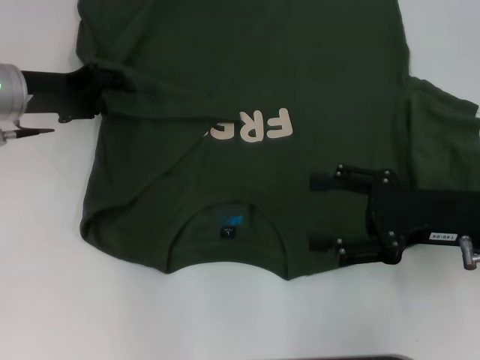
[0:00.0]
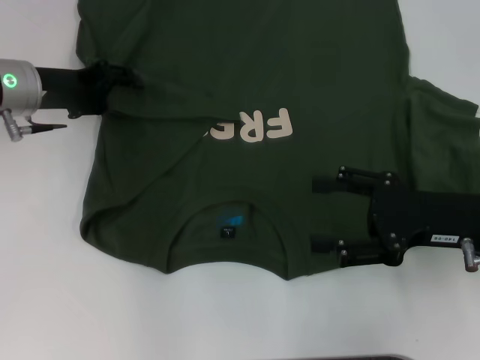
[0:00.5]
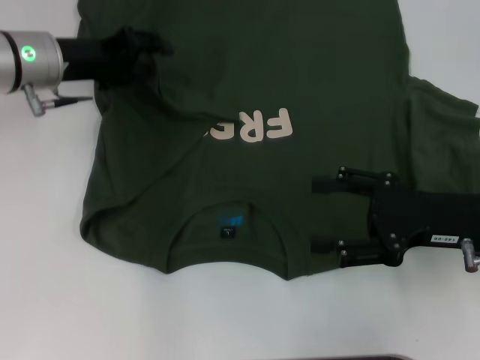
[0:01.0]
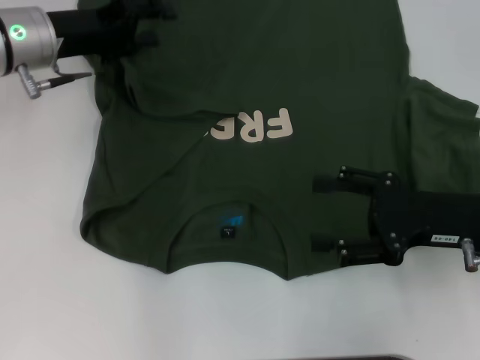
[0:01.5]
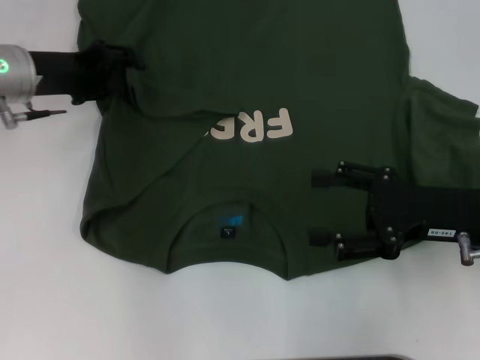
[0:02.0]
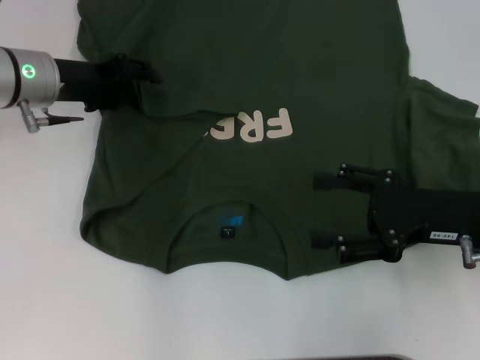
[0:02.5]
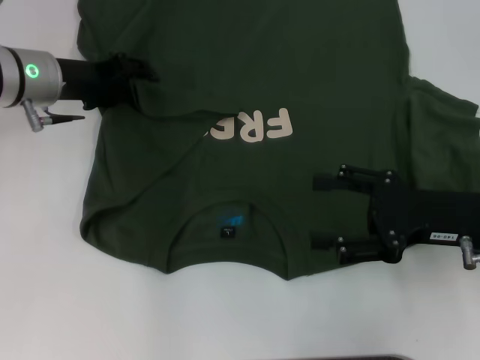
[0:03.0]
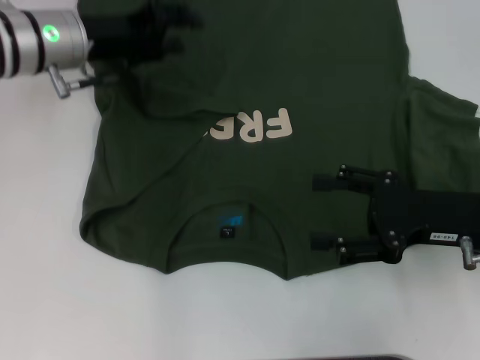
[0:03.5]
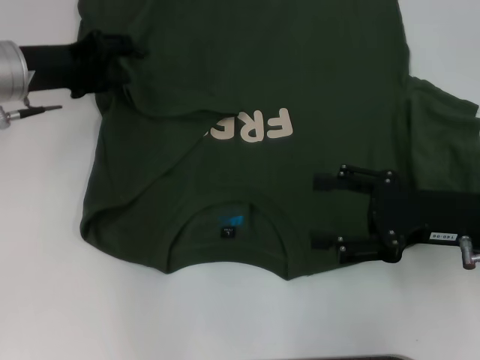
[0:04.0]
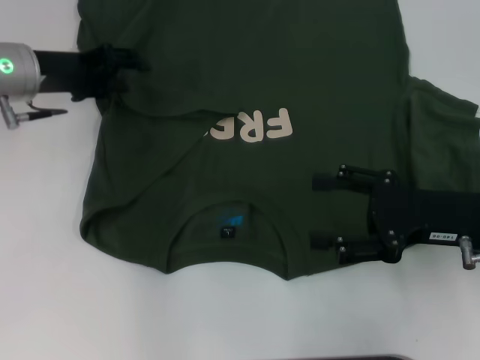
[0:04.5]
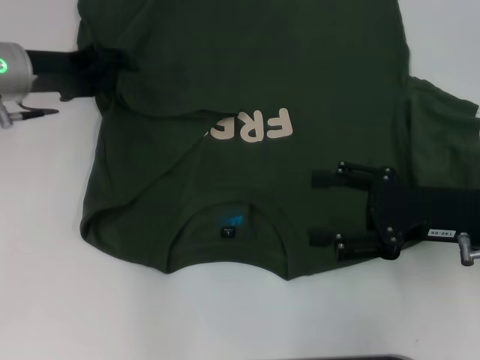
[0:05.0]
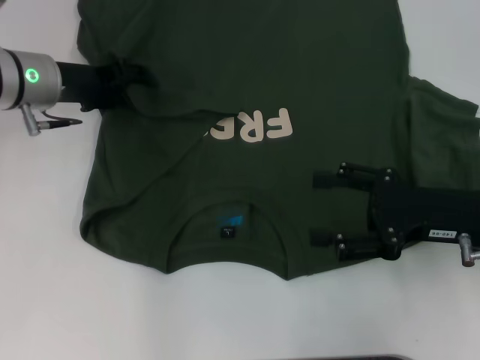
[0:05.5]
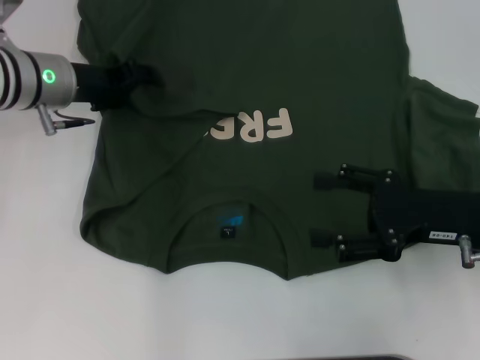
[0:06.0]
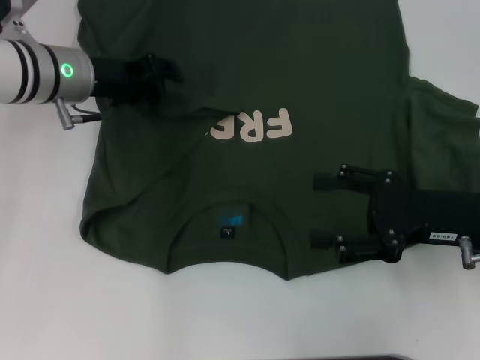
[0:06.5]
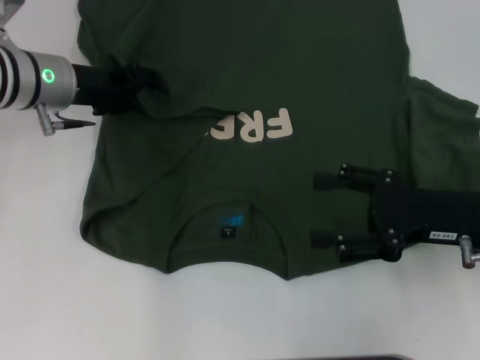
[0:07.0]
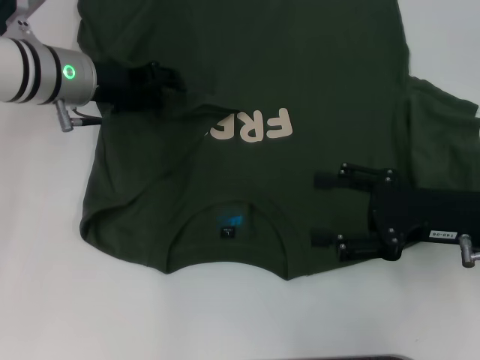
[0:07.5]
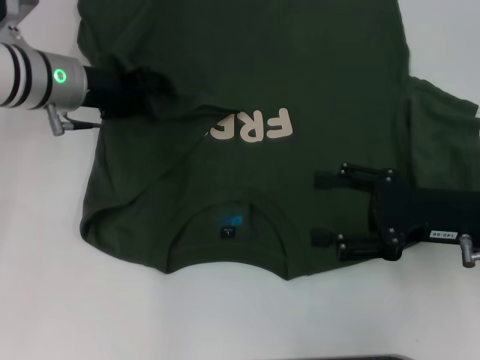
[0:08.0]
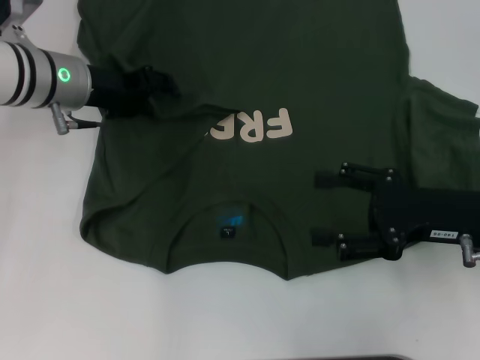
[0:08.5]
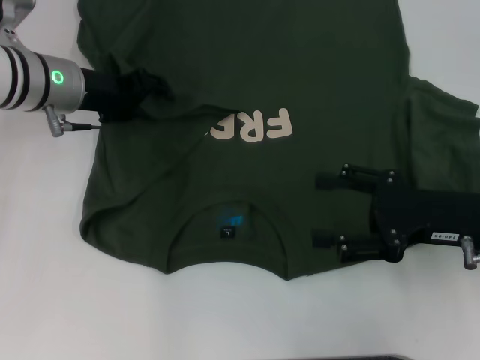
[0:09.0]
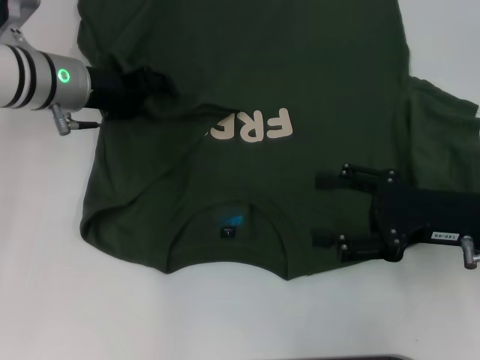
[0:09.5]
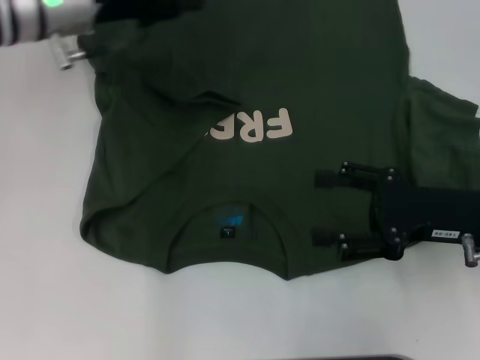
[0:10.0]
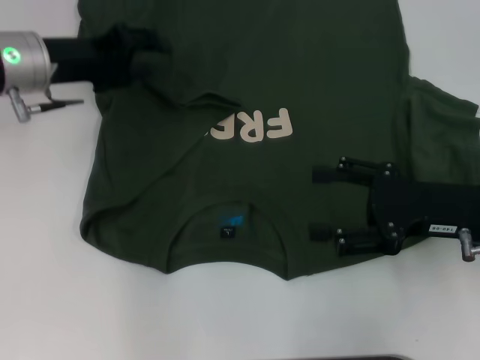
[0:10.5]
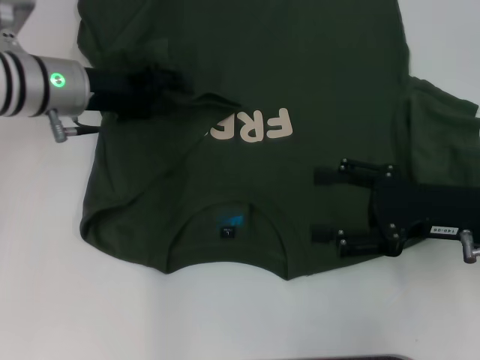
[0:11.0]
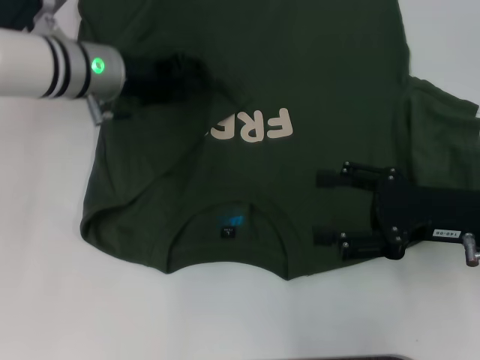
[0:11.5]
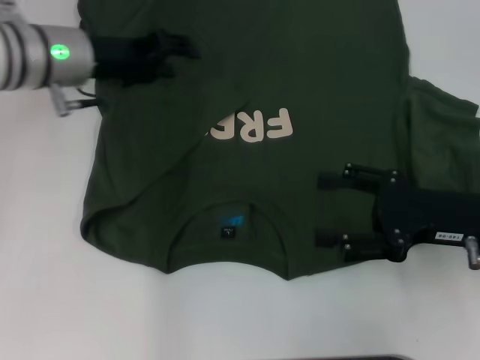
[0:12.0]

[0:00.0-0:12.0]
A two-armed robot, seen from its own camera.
Step, 0:00.0 to 0:12.0: Fold the bottom left sleeve with your left hand.
0:00.0 to 0:02.0: There are only small adjustments of the grippers.
0:02.0 to 0:08.0: The grippers make only small movements.
0:08.0 to 0:10.0: The left gripper moves upward, about 5 cm.

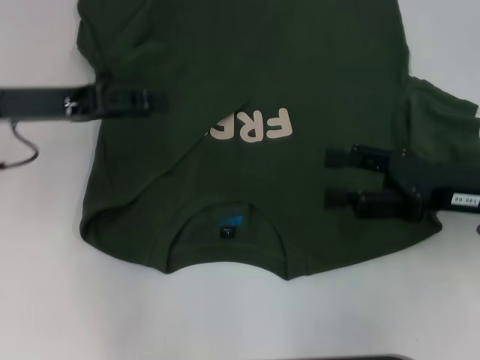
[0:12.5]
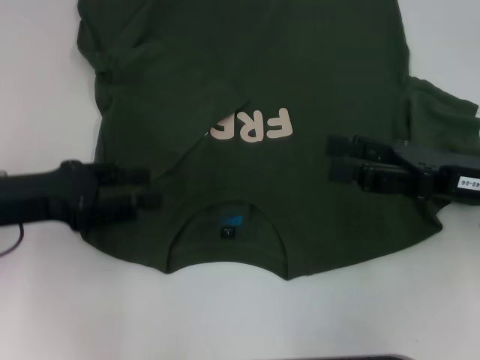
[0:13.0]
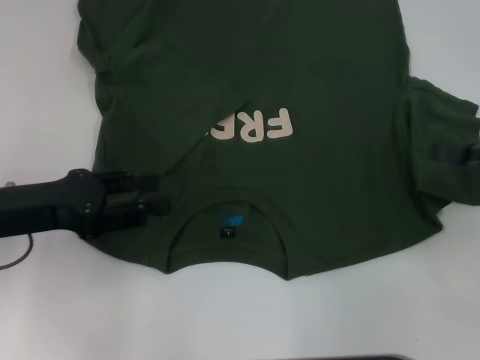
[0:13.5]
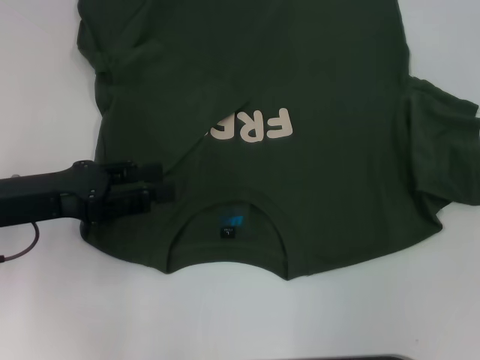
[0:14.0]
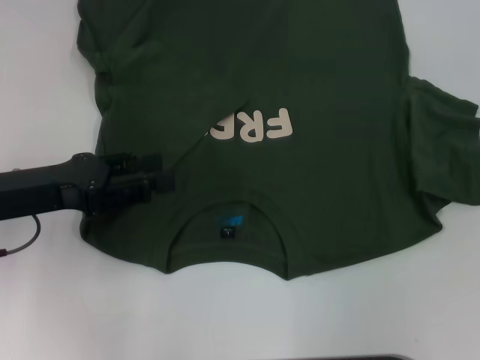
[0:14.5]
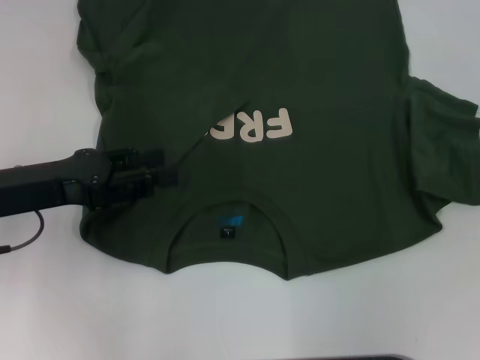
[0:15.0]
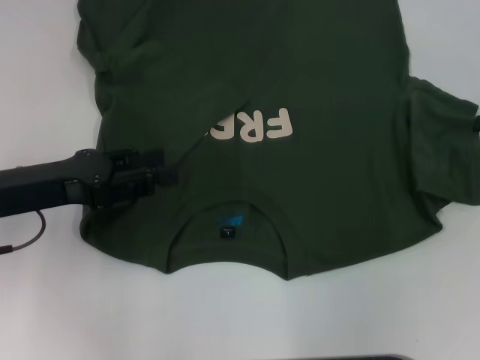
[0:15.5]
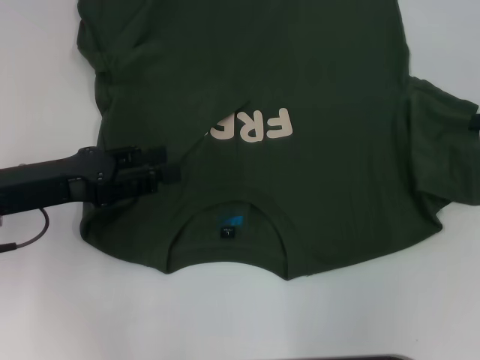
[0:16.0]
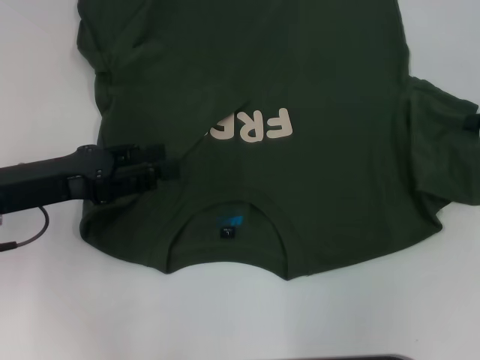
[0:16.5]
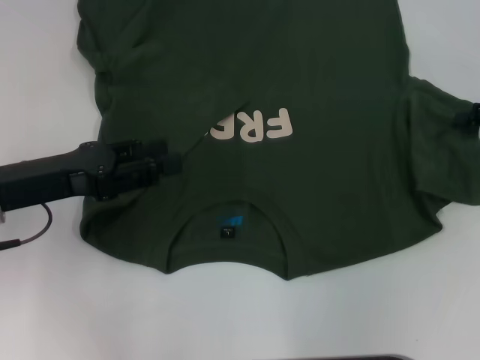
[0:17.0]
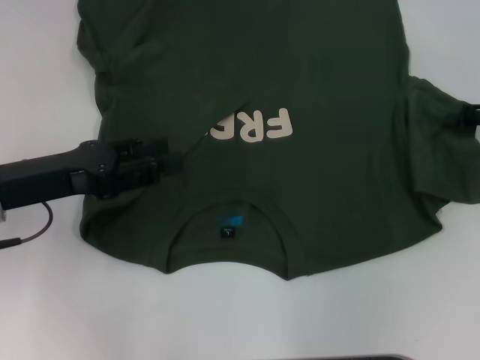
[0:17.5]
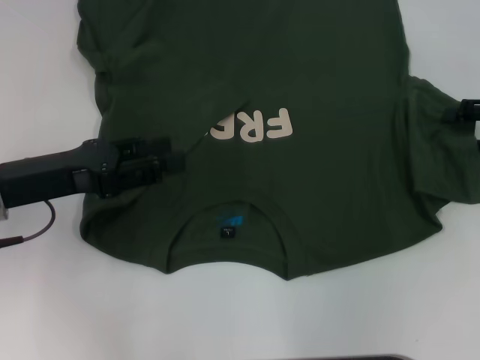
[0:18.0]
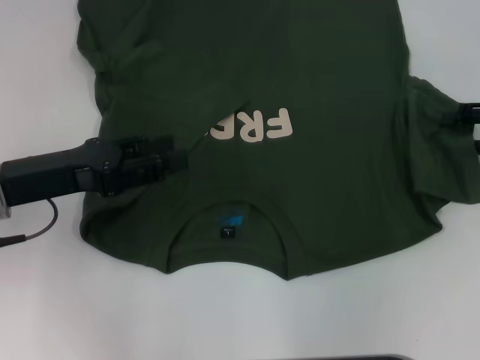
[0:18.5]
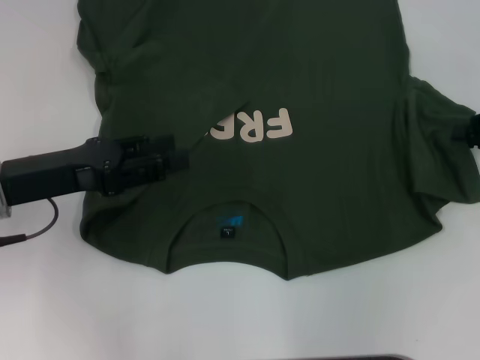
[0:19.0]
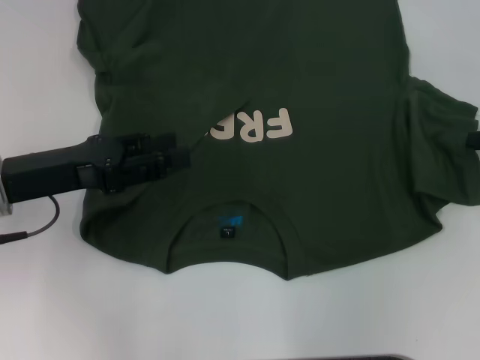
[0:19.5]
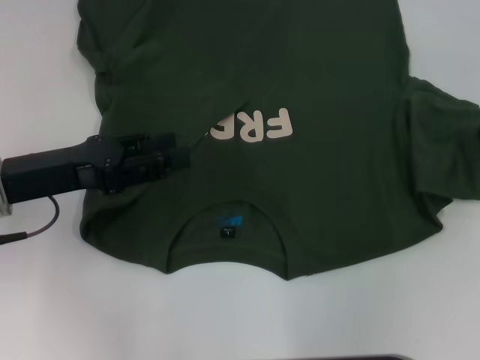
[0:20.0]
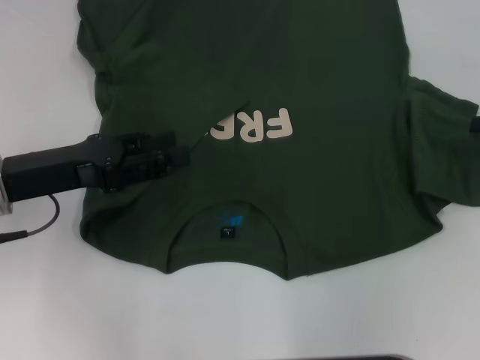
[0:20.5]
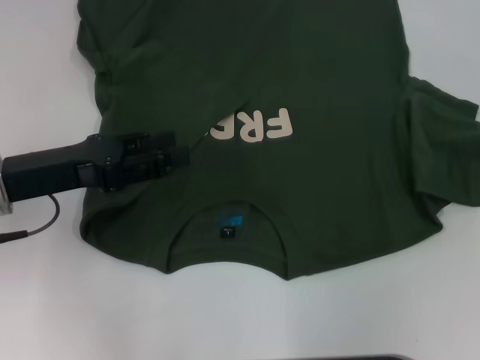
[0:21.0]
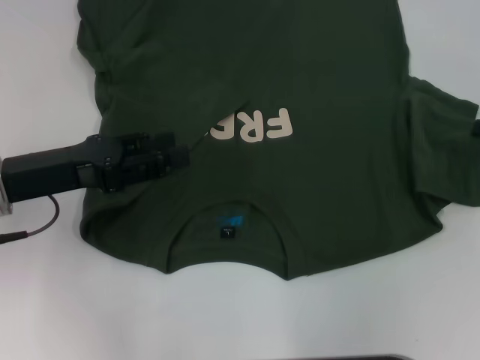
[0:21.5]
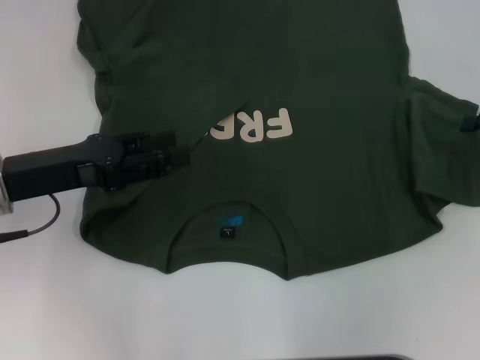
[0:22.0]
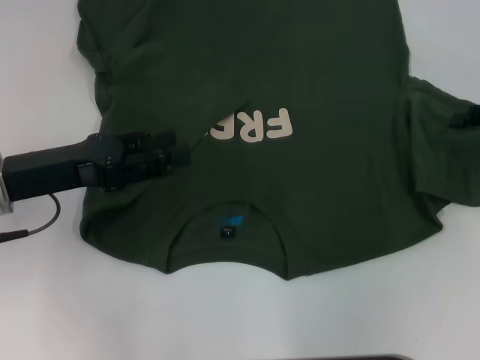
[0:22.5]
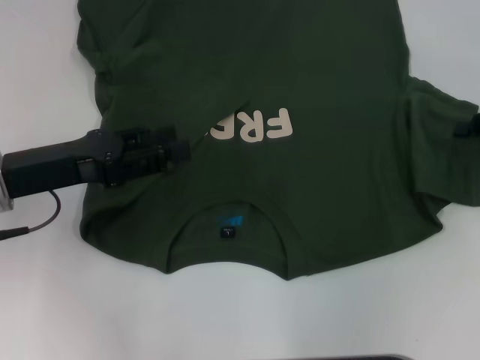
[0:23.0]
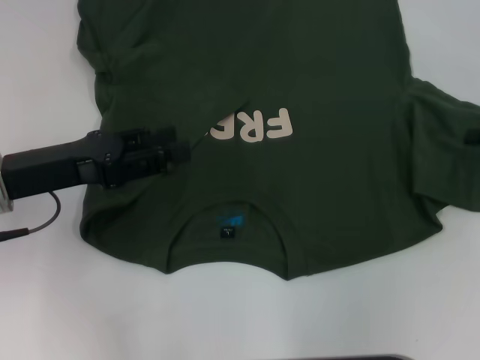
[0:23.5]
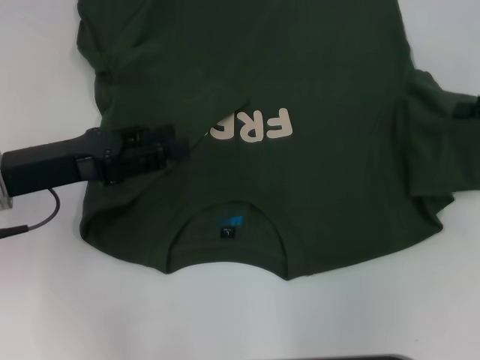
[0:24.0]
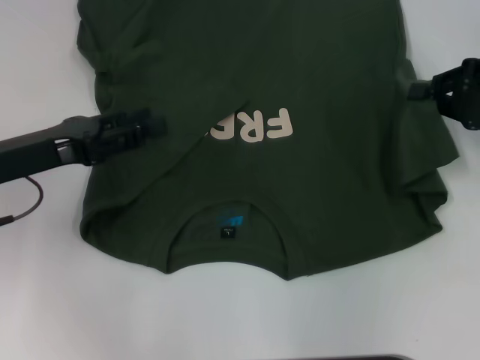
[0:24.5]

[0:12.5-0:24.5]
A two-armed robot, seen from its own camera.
0:12.5 to 0:14.5: The left gripper moves backward, approximately 5 cm; the right gripper is displaced to the right by some 15 cm.
0:16.5 to 0:18.5: The grippers stay close to where they were, moving slightly.
0:22.5 to 0:24.5: The right gripper shifts by about 5 cm, and closes its fingers.

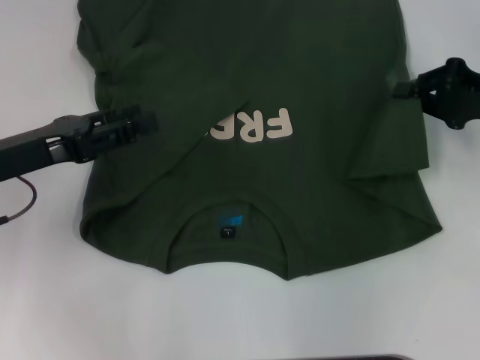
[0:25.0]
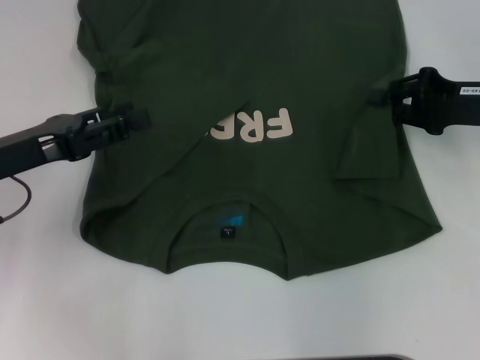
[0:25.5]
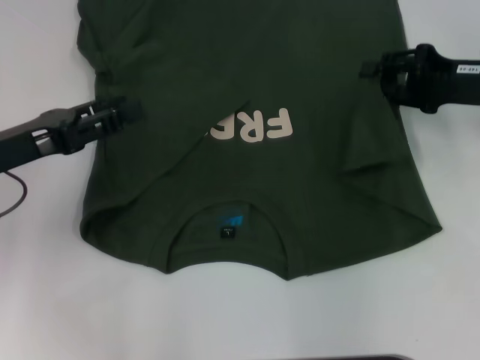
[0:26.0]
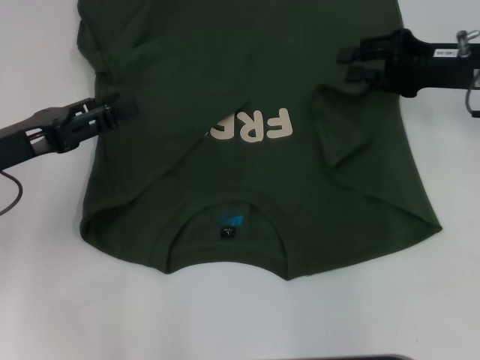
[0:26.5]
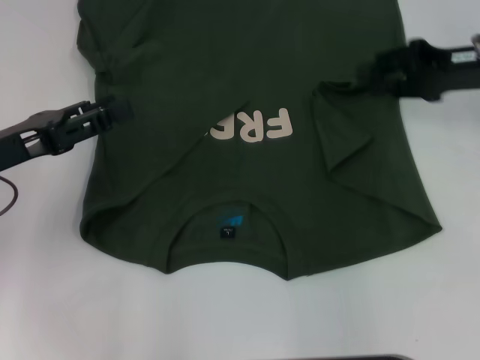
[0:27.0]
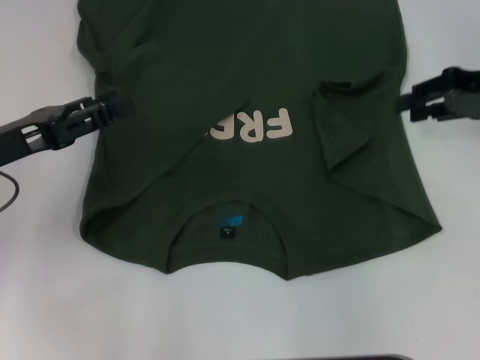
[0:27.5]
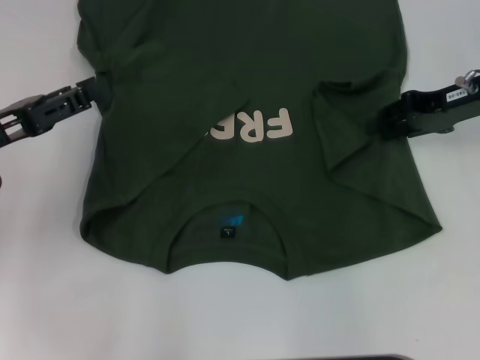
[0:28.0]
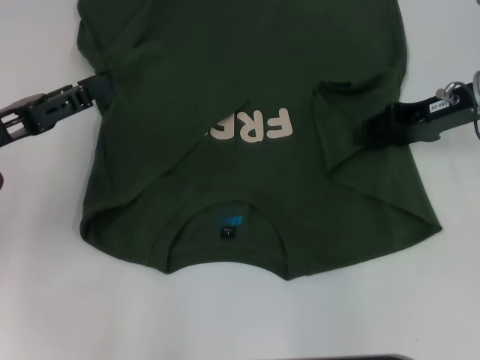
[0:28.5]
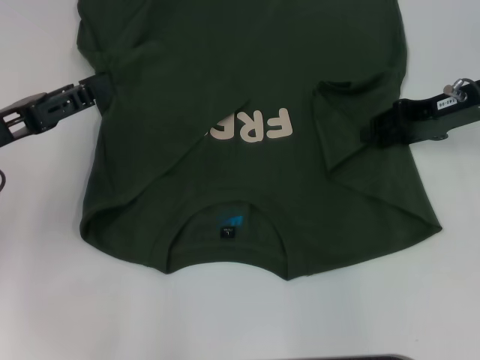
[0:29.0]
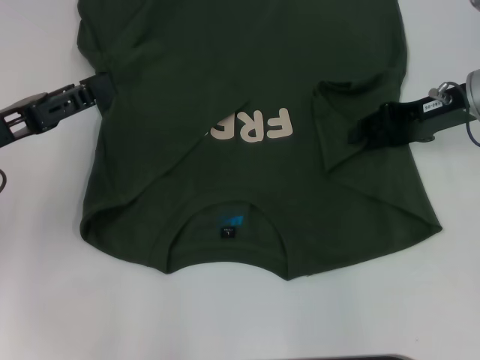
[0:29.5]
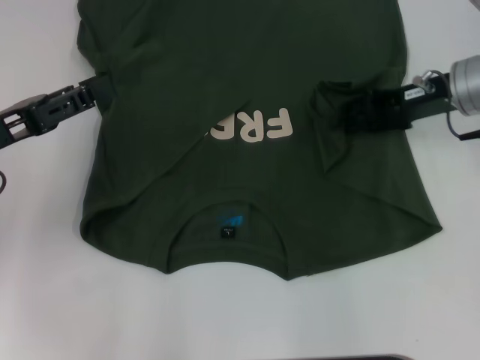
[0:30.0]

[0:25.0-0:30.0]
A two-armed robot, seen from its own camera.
0:25.0 to 0:27.5: The right gripper opens its fingers.
0:27.5 to 0:30.0: The right gripper goes approximately 5 cm to the left.
